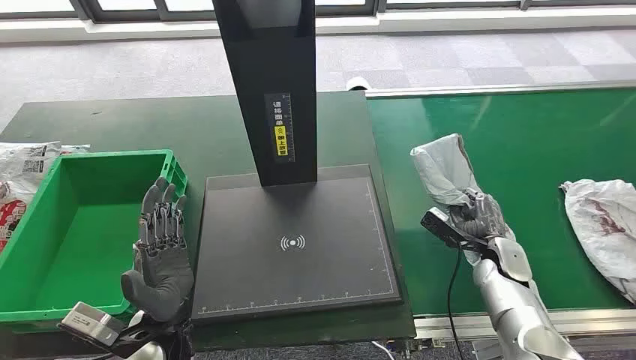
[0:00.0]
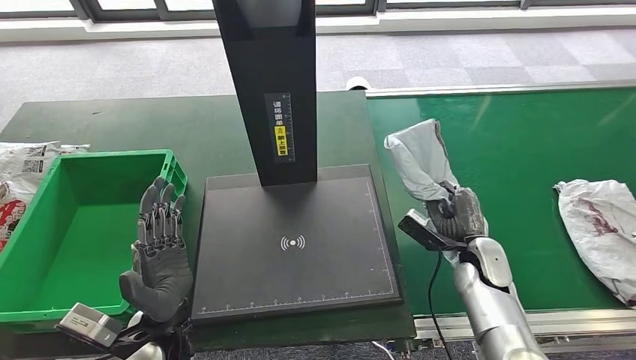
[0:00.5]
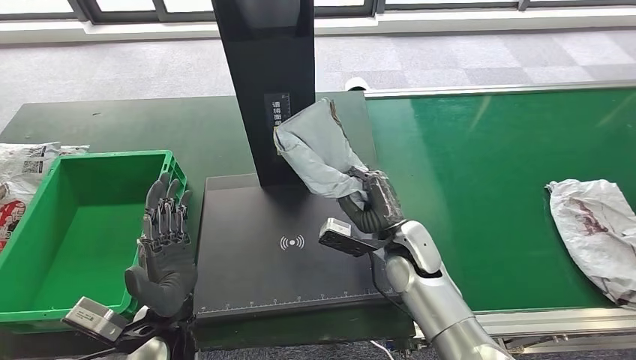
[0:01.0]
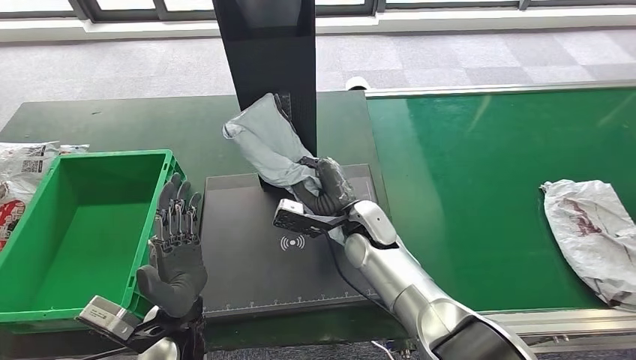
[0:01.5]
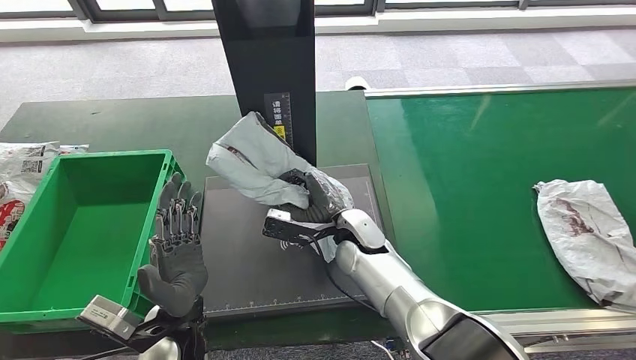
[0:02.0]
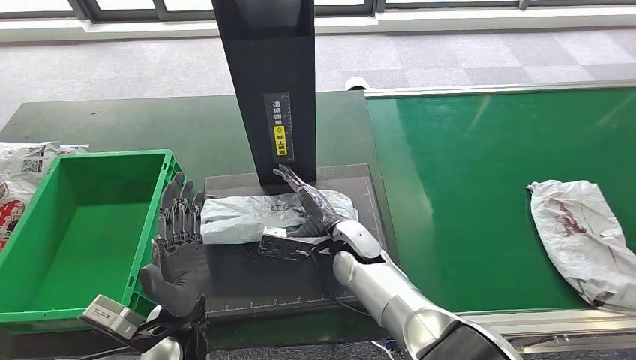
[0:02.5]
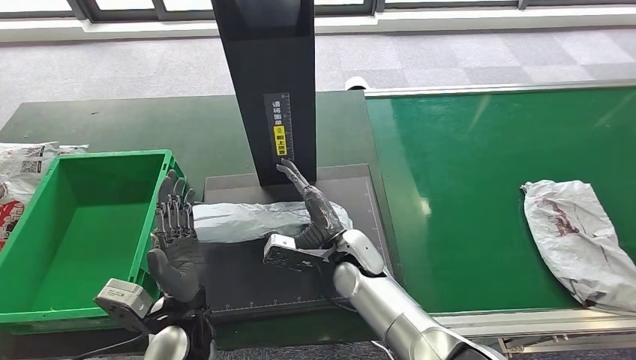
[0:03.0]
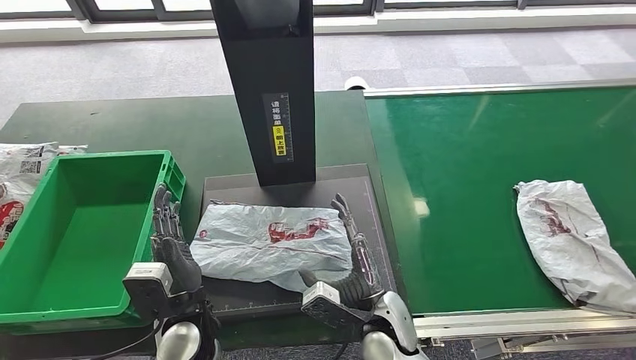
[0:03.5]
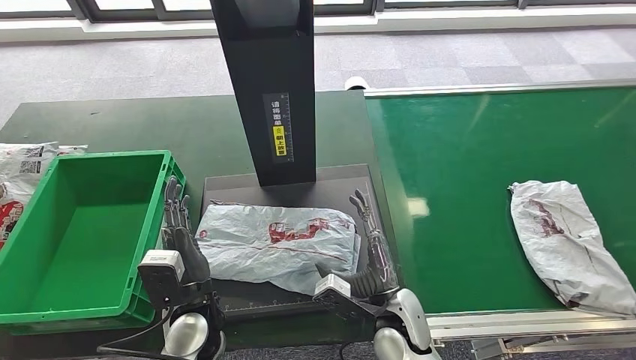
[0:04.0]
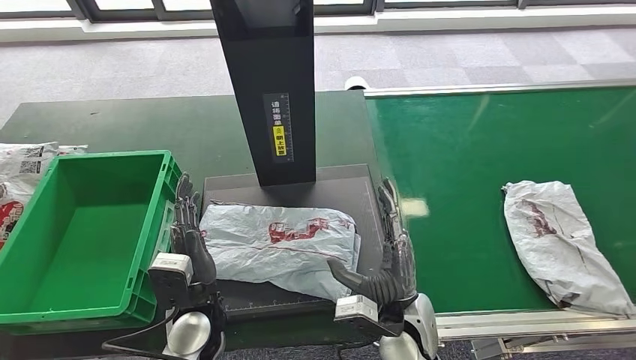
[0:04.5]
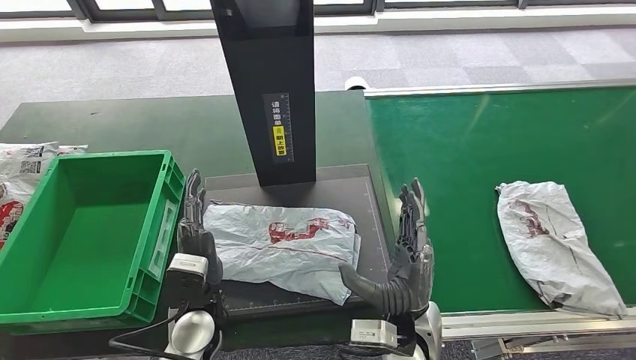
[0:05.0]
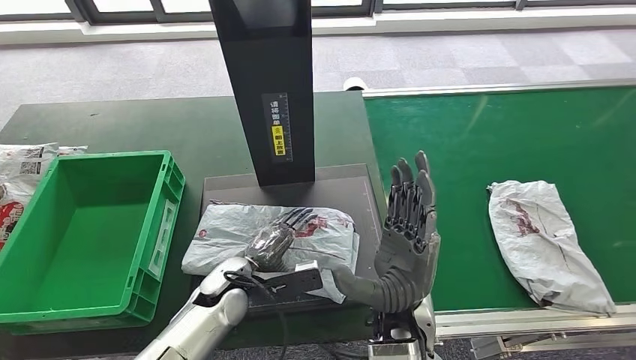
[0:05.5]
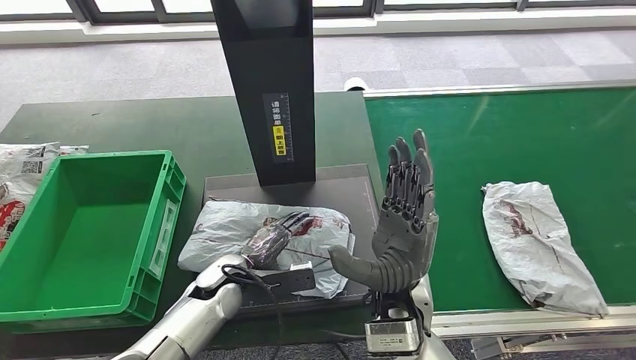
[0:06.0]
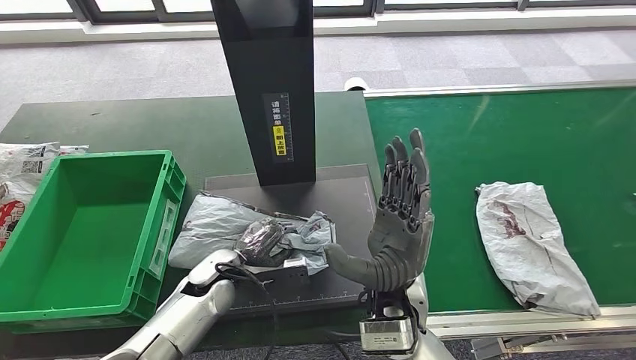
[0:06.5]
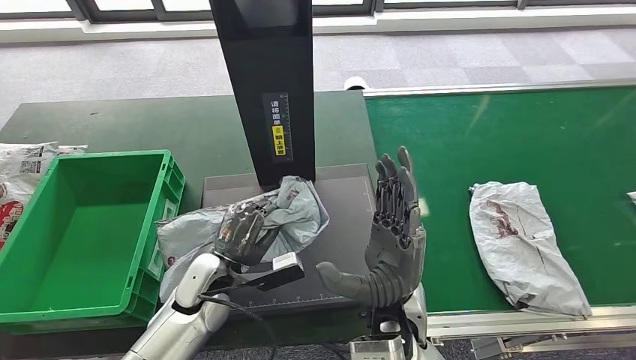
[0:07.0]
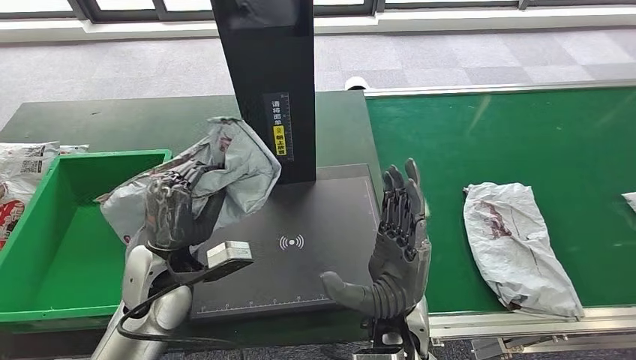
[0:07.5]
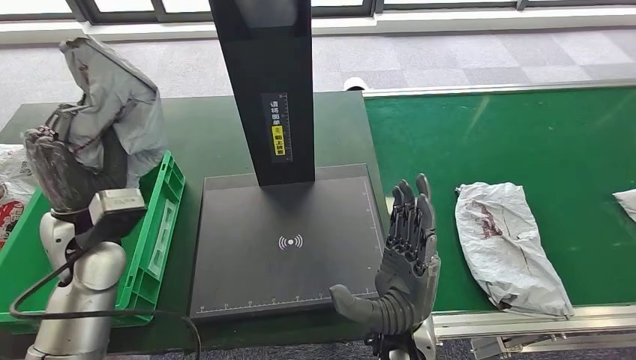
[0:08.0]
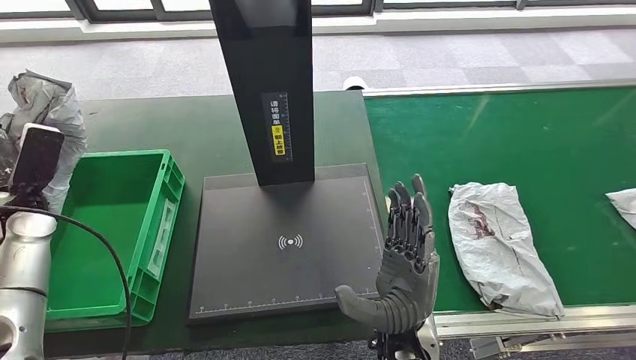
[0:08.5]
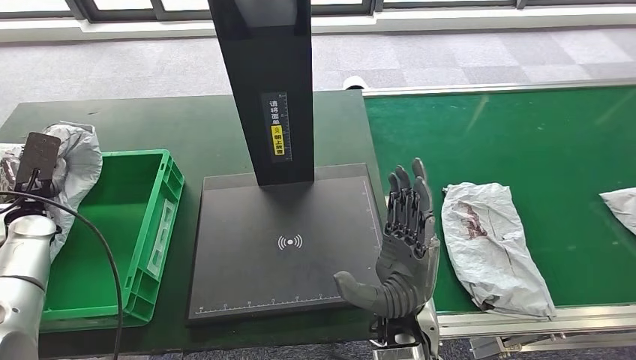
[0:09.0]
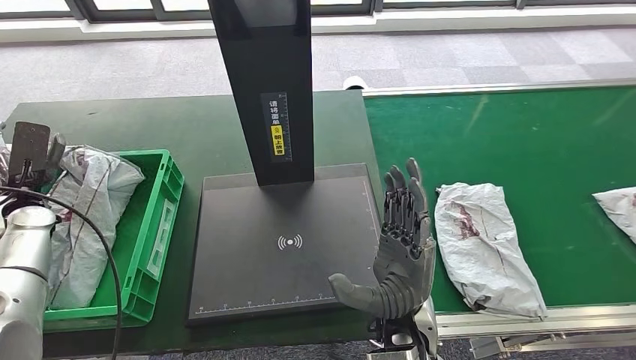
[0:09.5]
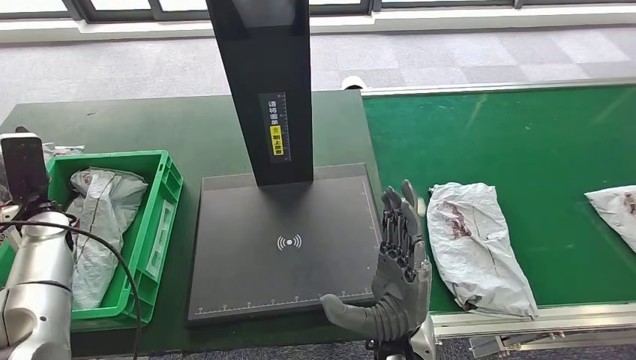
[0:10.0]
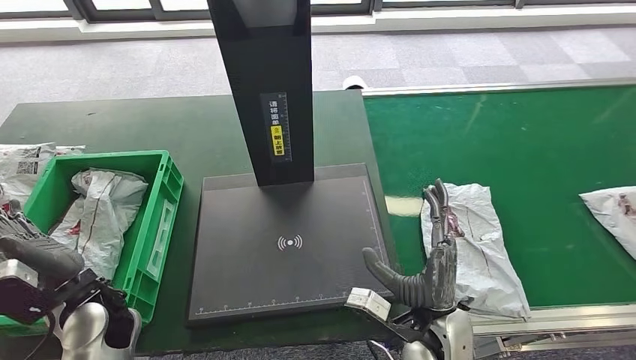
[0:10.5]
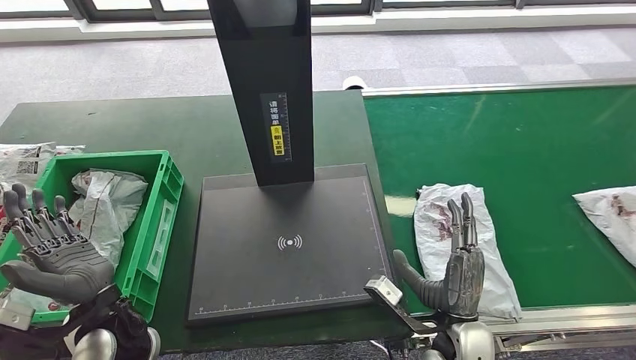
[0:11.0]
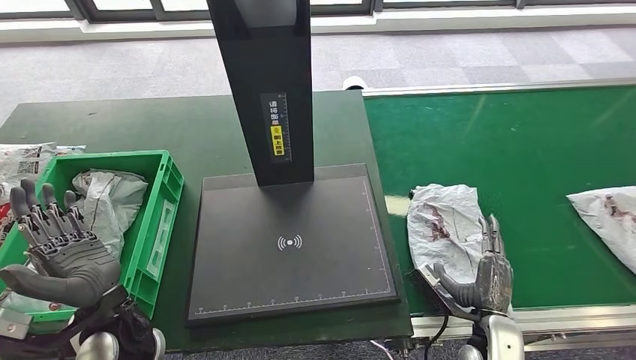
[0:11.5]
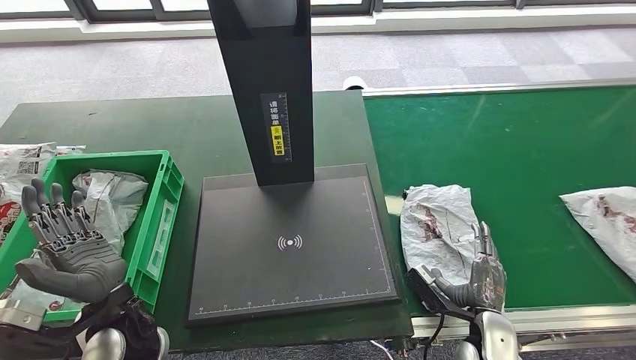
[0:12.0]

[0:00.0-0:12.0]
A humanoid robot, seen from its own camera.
Step, 0:00.0 to 0:00.5: Take the parcel off the conveyor belt.
Step, 0:01.0 to 0:03.0: Place the parcel onto the inbound machine.
Step, 0:03.5 to 0:07.5: Pick up the parcel from the inbound machine.
Step, 0:08.0 to 0:11.5: Put the parcel inside the courier box.

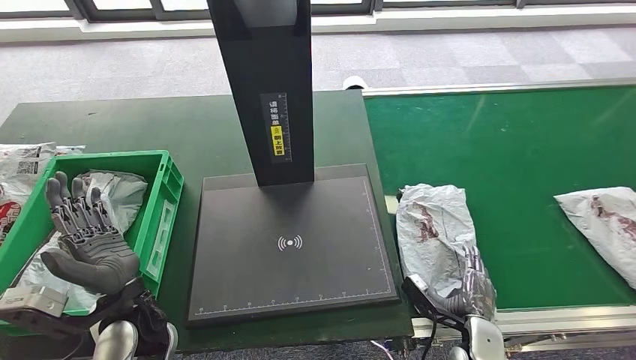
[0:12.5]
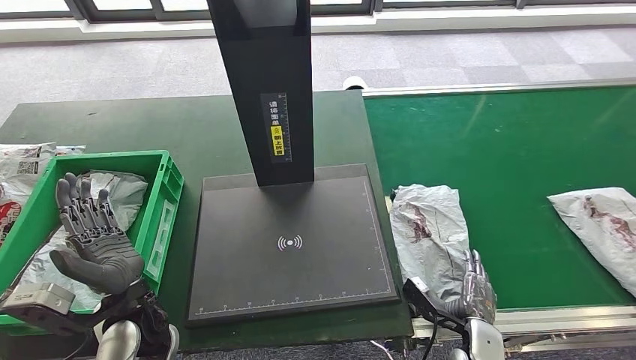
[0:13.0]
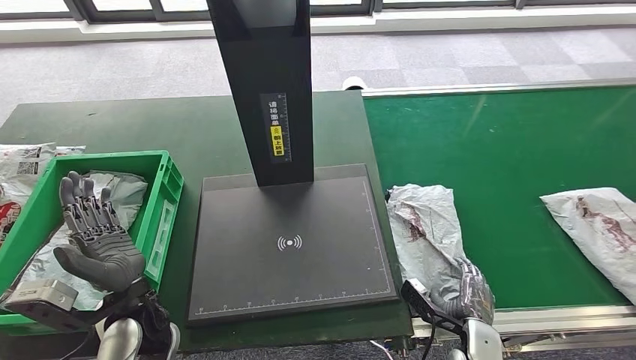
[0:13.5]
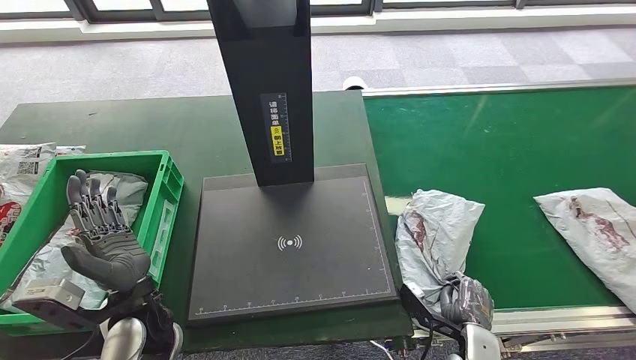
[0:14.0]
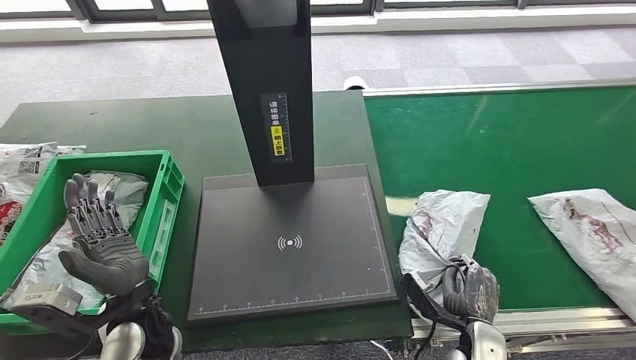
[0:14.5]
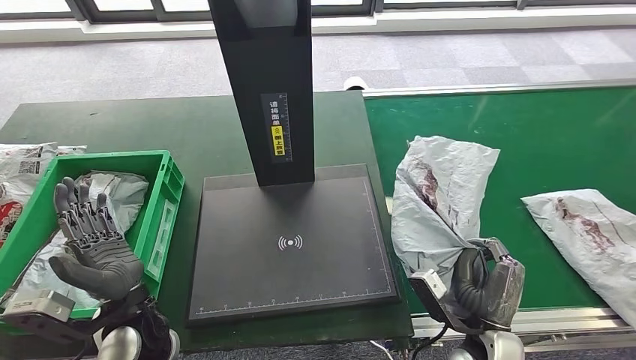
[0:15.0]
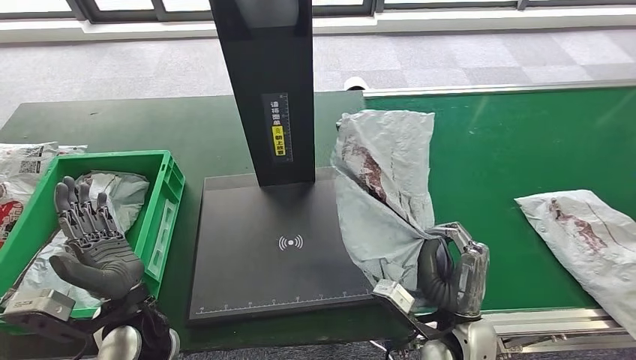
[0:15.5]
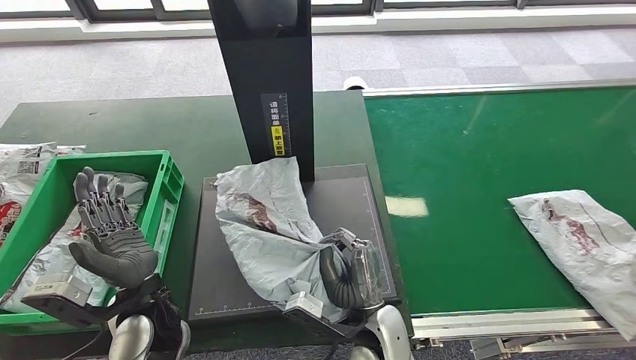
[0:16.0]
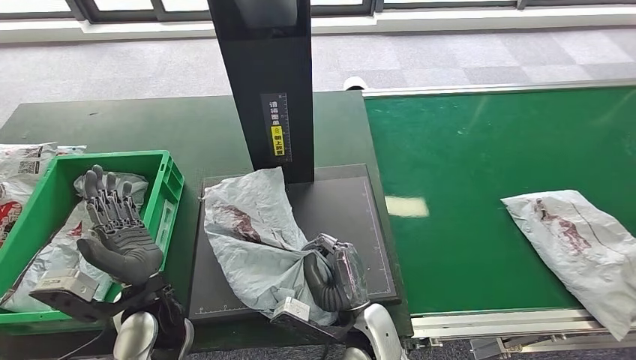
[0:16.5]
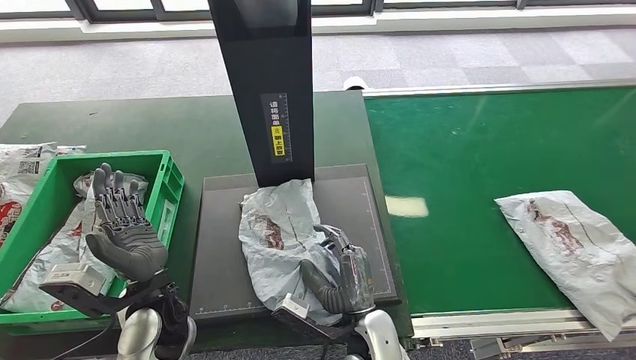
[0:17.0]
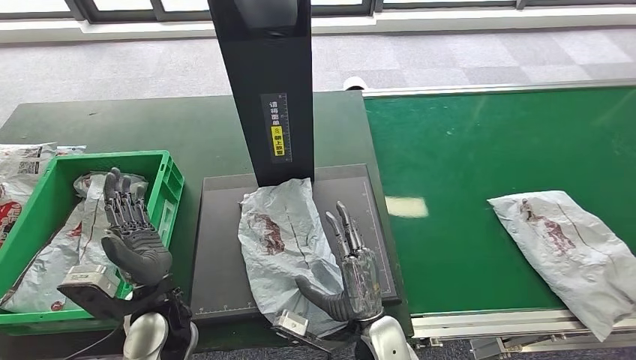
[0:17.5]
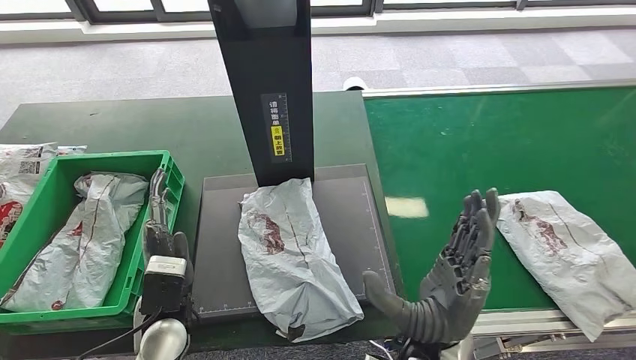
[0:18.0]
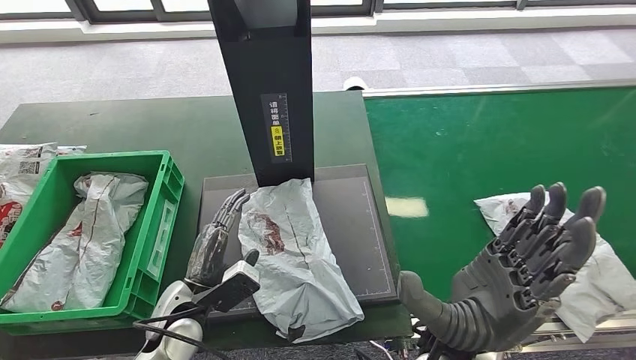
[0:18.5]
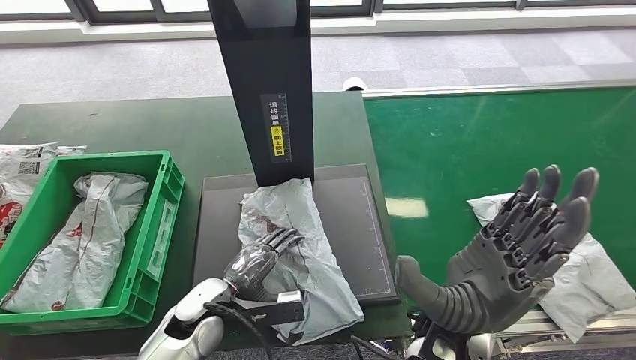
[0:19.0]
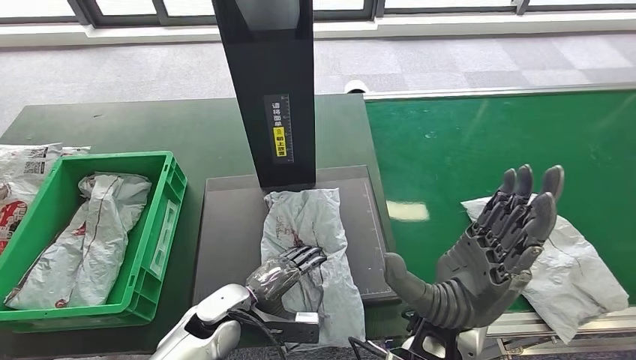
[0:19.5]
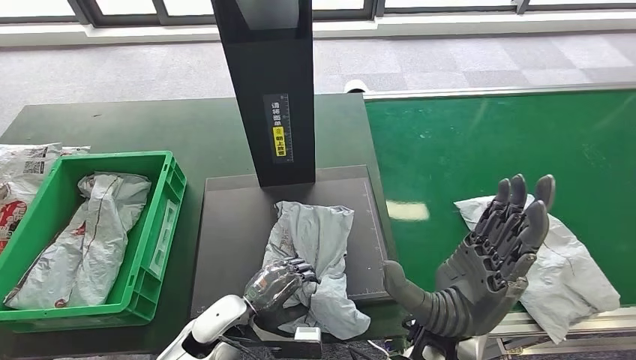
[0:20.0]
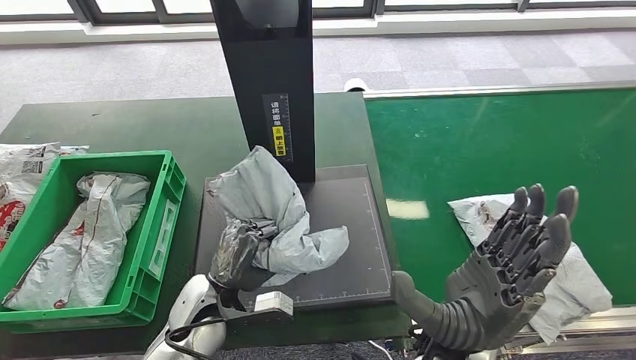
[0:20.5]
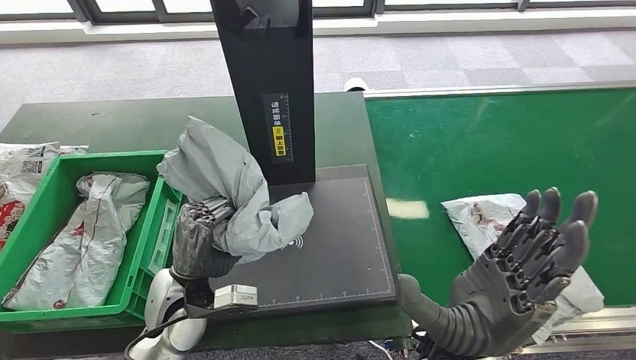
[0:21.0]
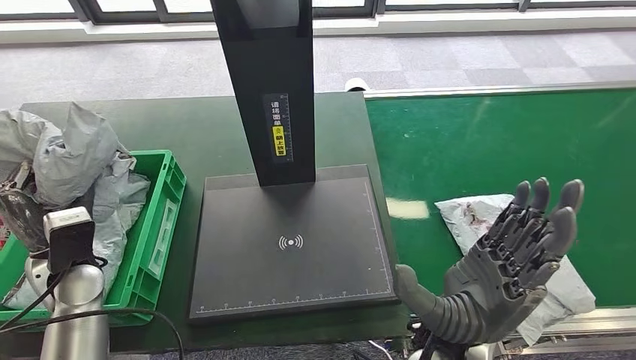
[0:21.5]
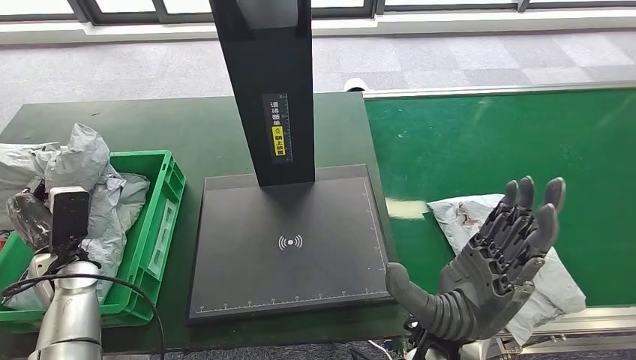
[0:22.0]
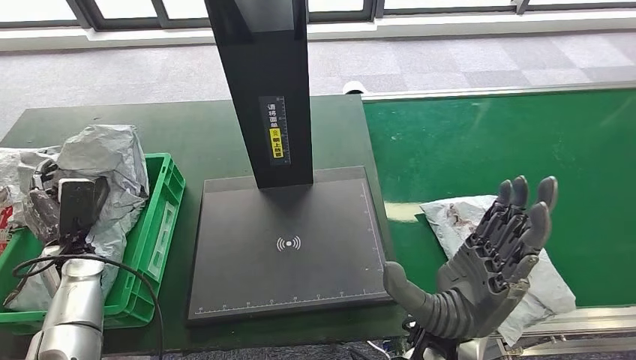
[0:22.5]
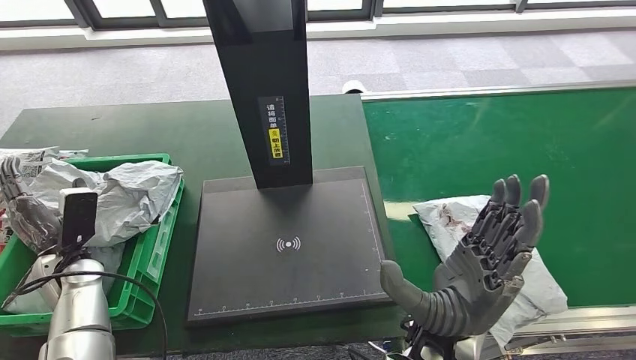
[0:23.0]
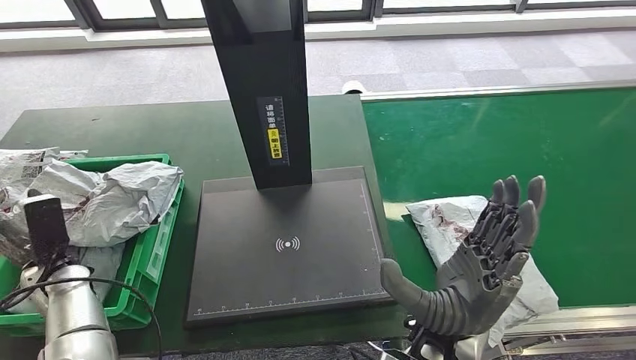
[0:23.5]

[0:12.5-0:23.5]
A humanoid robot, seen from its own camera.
Step, 0:12.5 to 0:15.5: Pick up the parcel from the conveyor belt.
Step, 0:16.0 to 0:19.0: Place the parcel onto the inbound machine.
Step, 0:19.5 to 0:20.5: Pick up the parcel from the inbound machine.
0:12.5 to 0:14.5: The hands move only a little.
